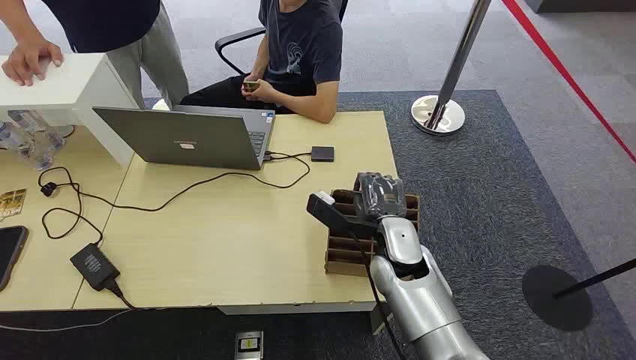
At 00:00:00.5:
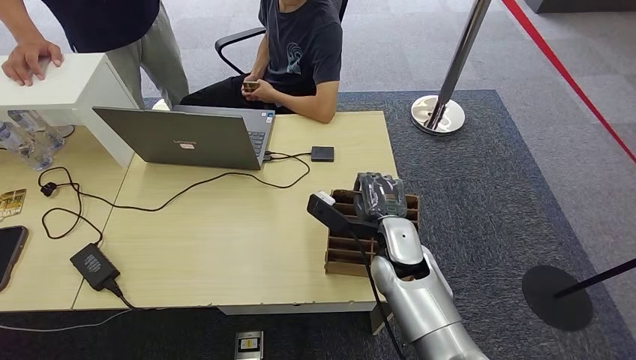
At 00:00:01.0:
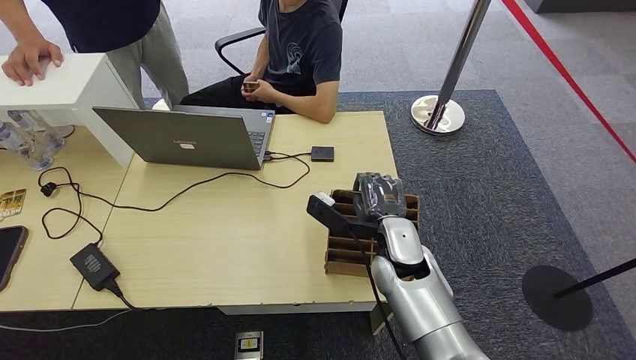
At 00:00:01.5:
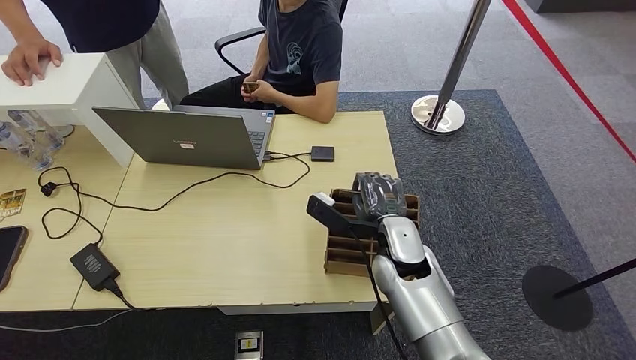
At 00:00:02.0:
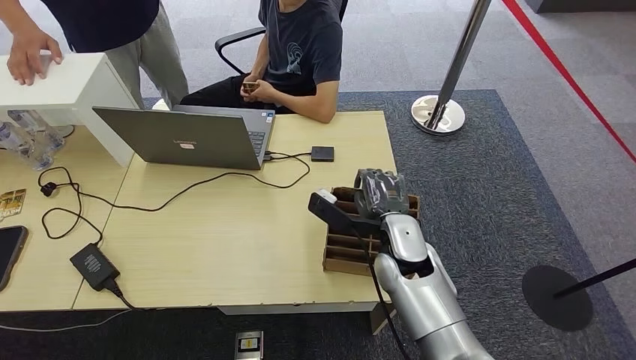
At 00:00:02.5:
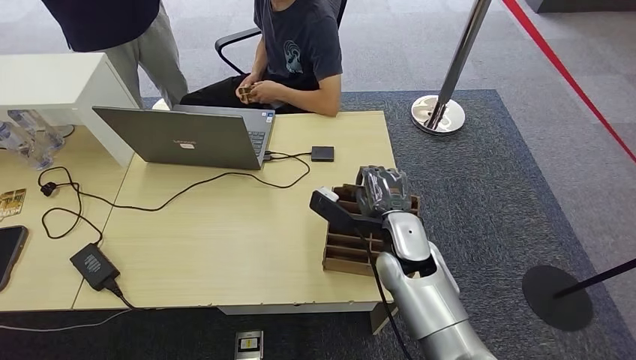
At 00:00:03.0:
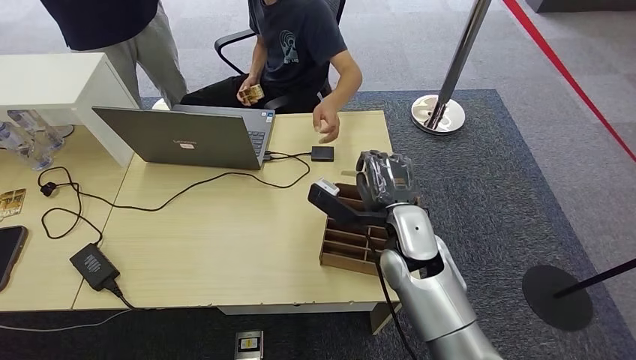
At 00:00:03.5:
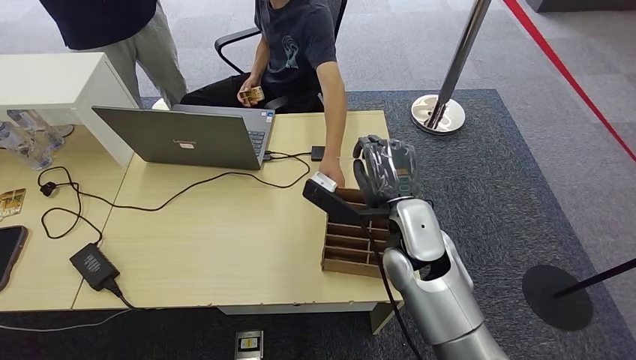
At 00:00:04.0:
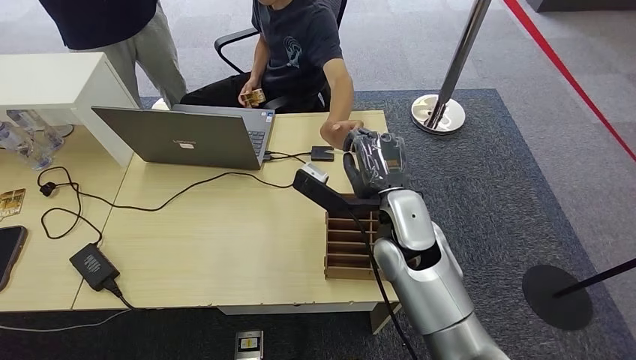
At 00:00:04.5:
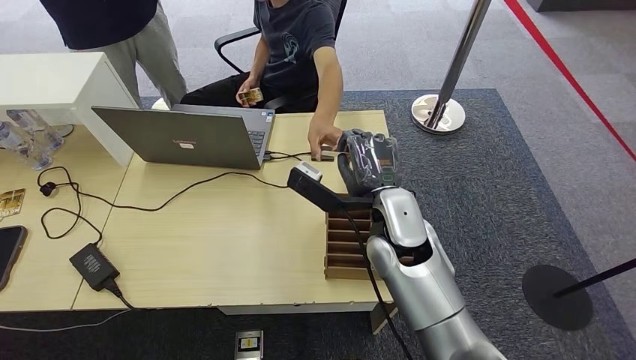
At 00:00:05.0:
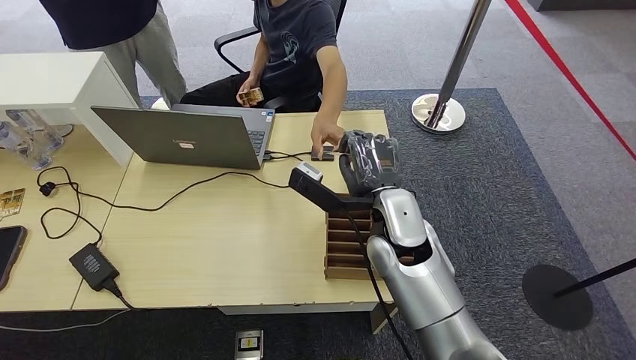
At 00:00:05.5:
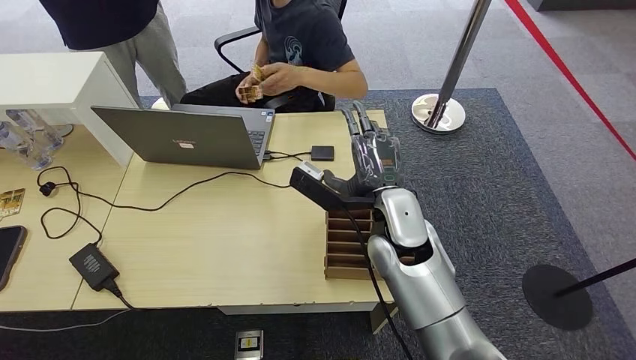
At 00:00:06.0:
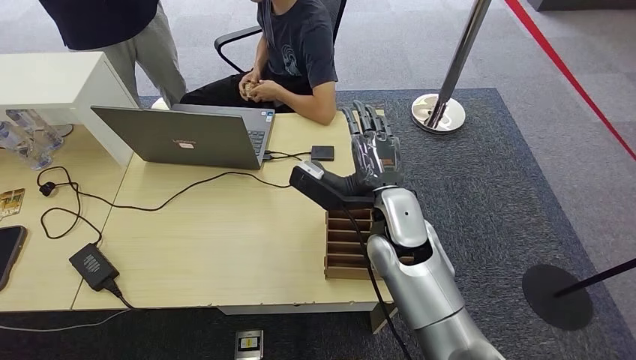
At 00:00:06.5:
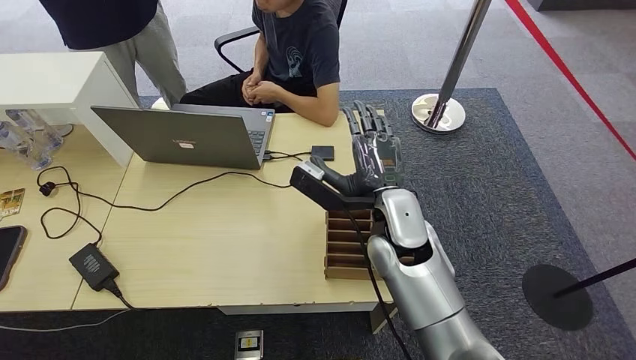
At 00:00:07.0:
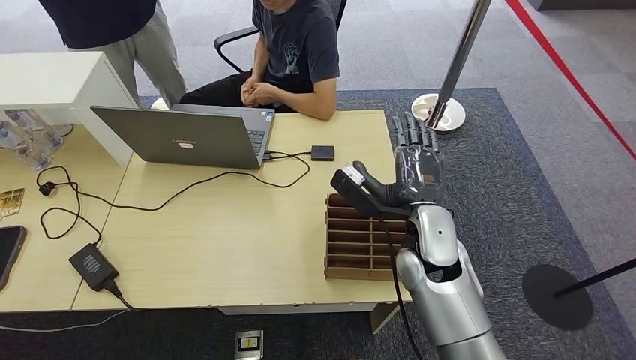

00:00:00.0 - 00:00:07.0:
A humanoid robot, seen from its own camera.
Step, 00:00:00.0 - 00:00:03.0: Pick up the key card from the card box.
Step, 00:00:03.5 - 00:00:07.0: Hand the key card to the target.
00:00:02.0 - 00:00:03.5: The right hand goes some 5 cm upward.
00:00:03.5 - 00:00:07.0: The hands make only small movements.
